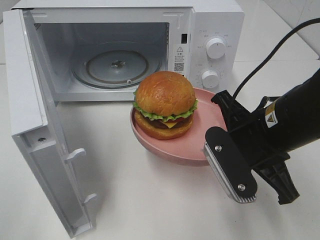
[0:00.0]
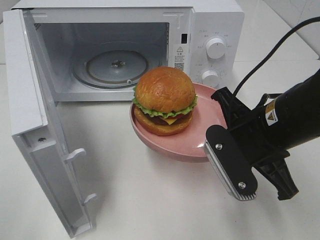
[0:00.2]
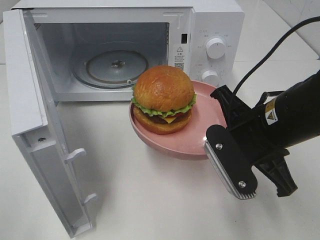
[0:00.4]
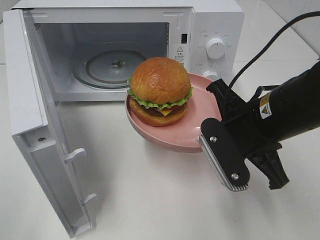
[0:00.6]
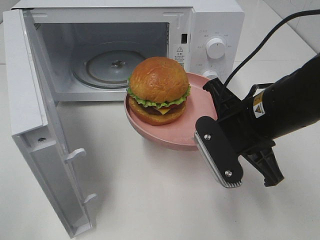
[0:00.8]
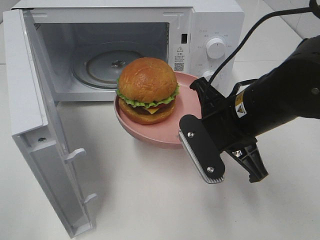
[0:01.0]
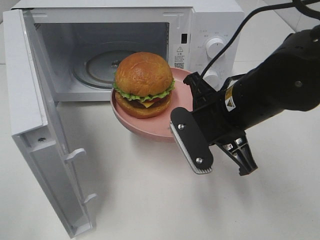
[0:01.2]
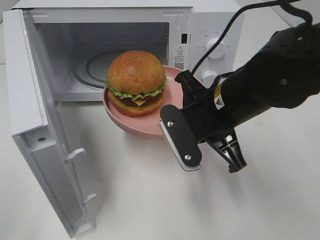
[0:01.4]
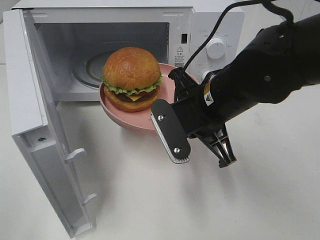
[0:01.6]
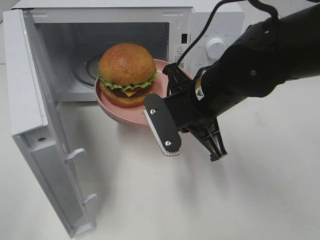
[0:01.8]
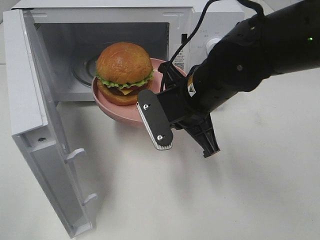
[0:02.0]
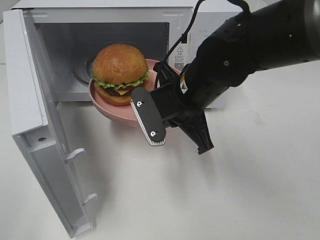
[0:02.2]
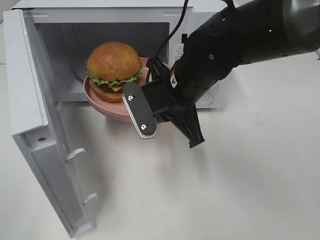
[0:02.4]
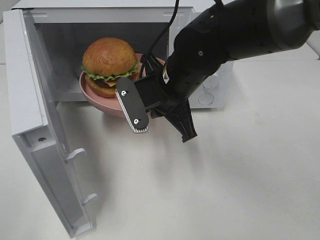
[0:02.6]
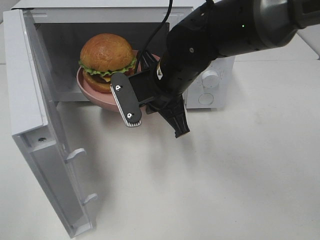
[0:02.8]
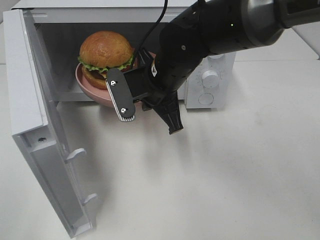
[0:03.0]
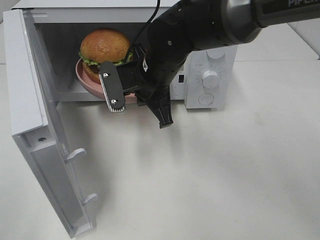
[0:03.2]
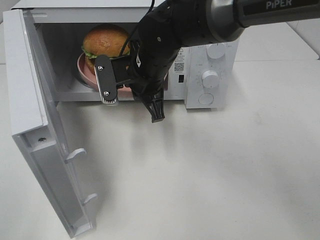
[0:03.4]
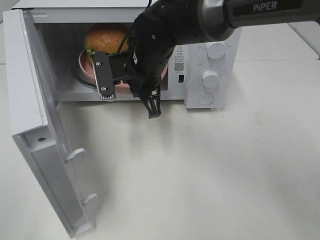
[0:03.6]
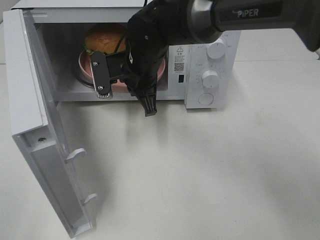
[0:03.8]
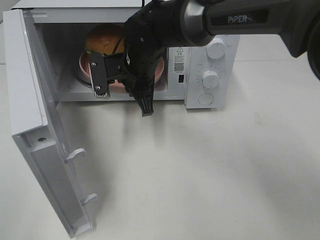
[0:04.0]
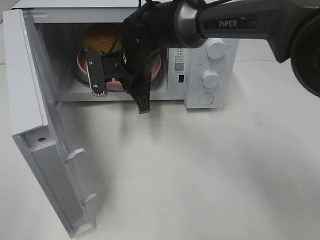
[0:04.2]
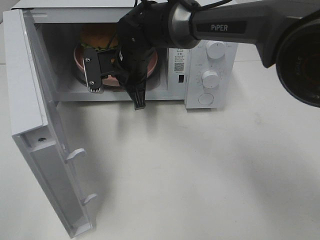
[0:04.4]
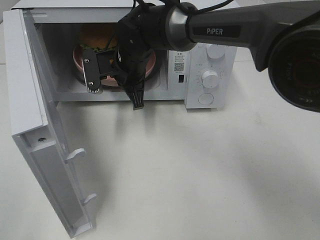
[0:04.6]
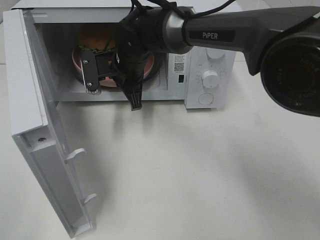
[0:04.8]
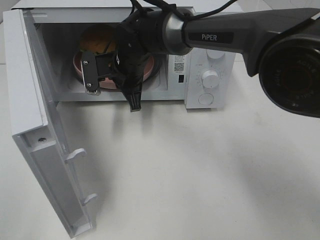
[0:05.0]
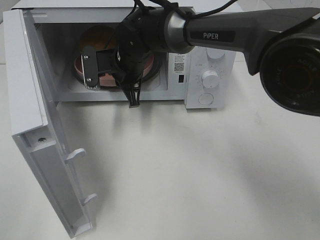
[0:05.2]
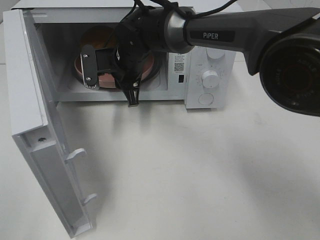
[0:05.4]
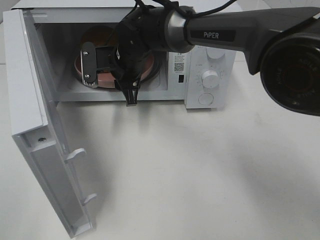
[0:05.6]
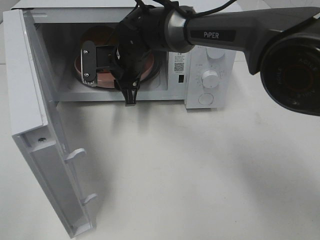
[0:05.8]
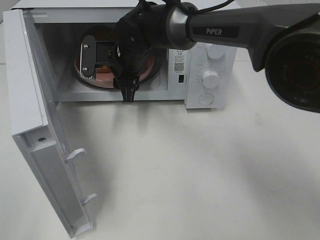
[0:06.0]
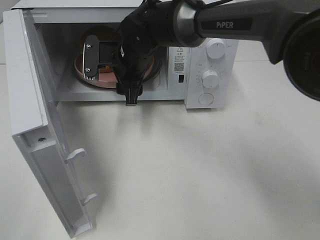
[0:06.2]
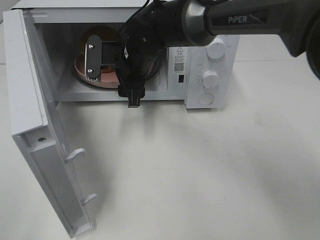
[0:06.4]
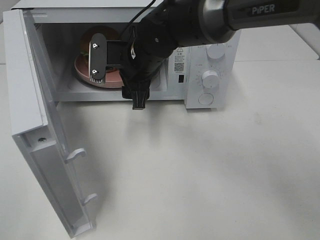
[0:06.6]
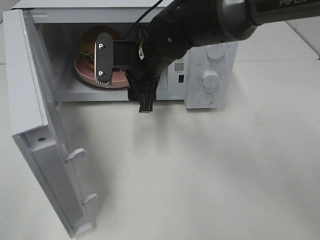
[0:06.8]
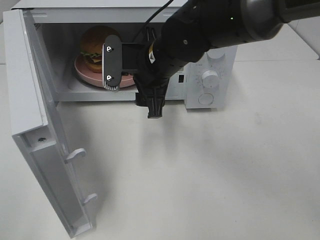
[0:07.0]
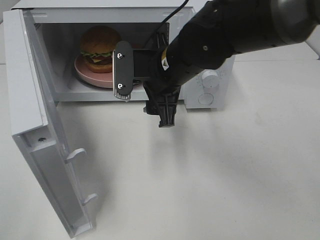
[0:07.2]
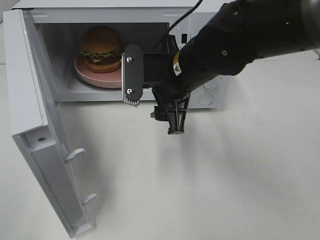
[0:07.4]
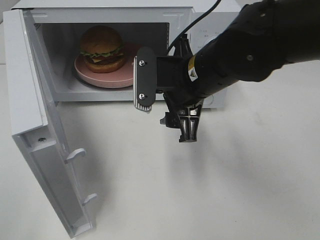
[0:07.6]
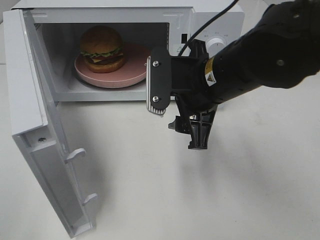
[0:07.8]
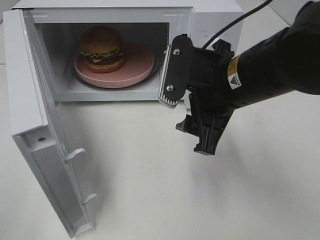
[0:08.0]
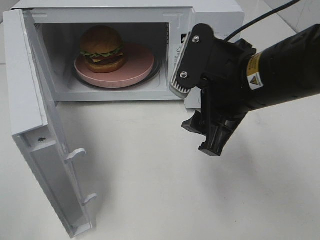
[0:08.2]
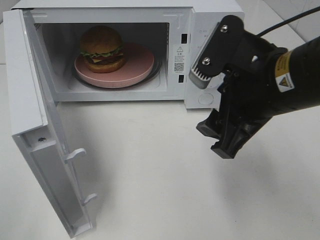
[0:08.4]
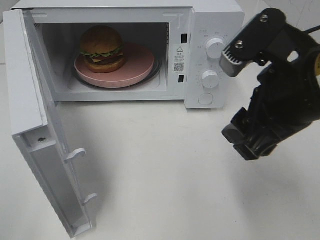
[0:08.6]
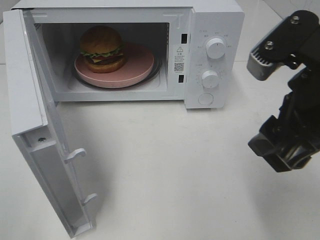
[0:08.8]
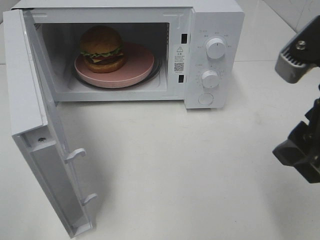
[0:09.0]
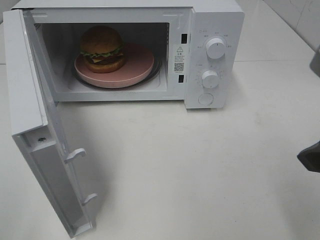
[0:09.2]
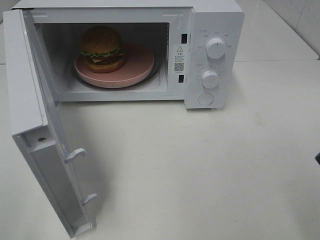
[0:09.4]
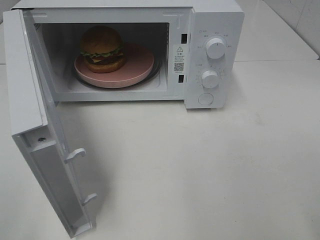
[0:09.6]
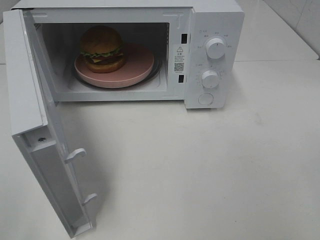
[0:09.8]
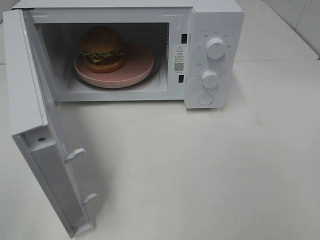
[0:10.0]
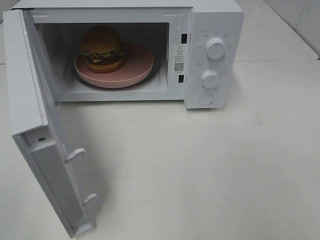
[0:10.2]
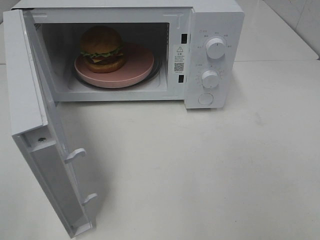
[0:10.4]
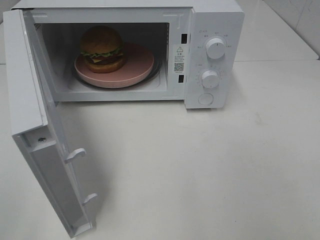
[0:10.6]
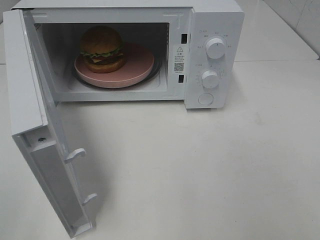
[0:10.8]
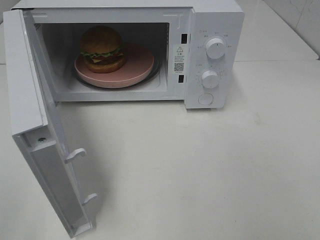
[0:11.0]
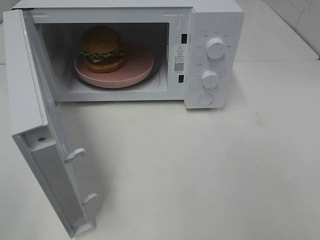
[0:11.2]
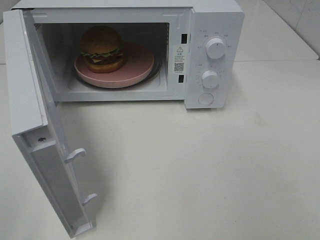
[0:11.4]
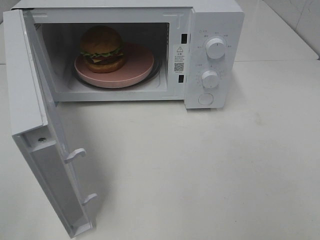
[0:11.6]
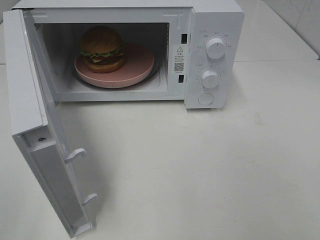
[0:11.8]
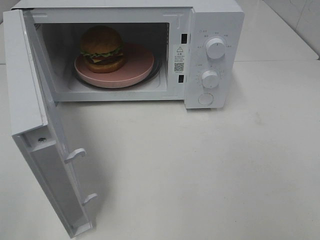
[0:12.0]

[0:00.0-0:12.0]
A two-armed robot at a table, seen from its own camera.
Task of the whole recording: Heat the burger.
Step, 0:00.0 to 0:05.4: Right hand: place the plate in the microwave.
0:00.0 to 0:01.6: The right gripper travels to the left and forward by about 10 cm.
0:01.6 to 0:03.0: The right gripper travels forward and to the left by roughly 10 cm.
0:03.0 to 0:04.4: The right gripper shifts some 10 cm forward and to the left.
0:04.4 to 0:06.0: The right gripper opens its fingers.
0:06.0 to 0:07.6: The right gripper is displaced backward and to the right by roughly 20 cm.
0:07.6 to 0:09.0: The right gripper goes approximately 20 cm backward, to the right and upward.
0:09.0 to 0:10.4: The right gripper goes approximately 15 cm backward and to the right.

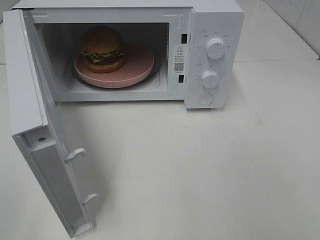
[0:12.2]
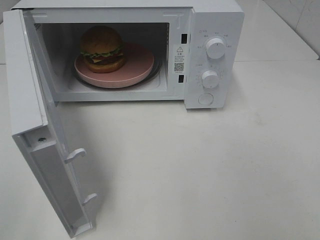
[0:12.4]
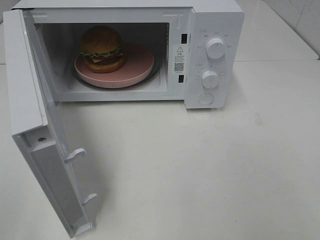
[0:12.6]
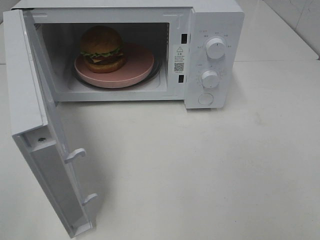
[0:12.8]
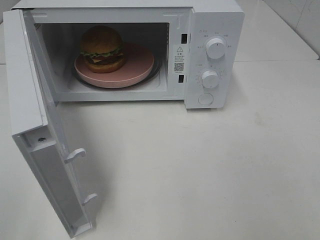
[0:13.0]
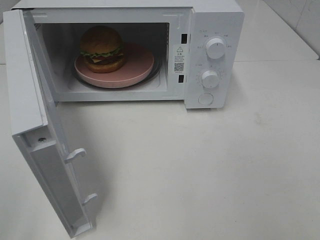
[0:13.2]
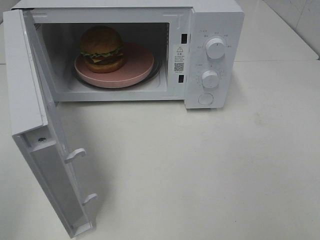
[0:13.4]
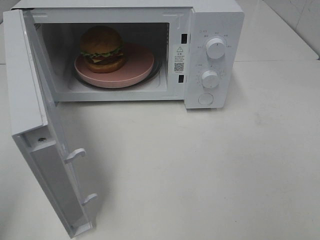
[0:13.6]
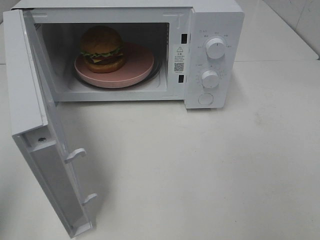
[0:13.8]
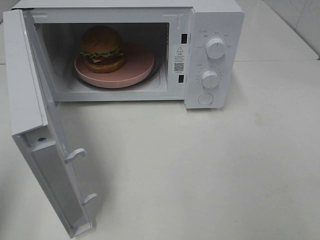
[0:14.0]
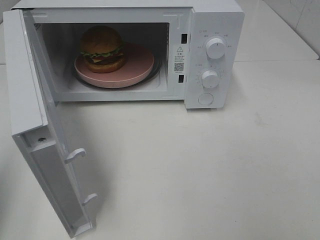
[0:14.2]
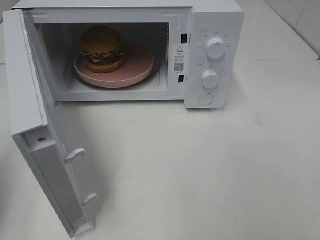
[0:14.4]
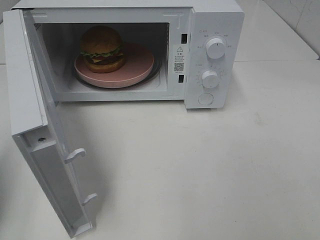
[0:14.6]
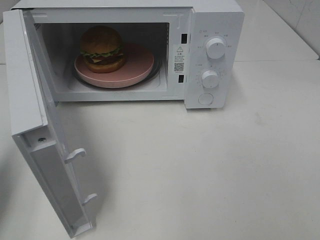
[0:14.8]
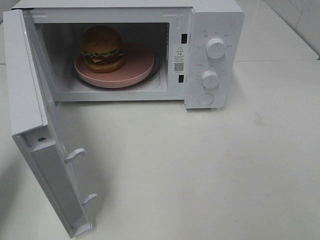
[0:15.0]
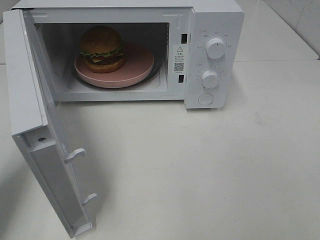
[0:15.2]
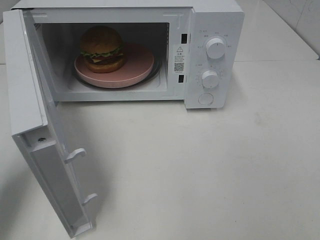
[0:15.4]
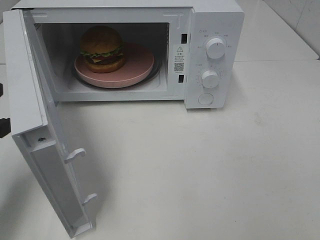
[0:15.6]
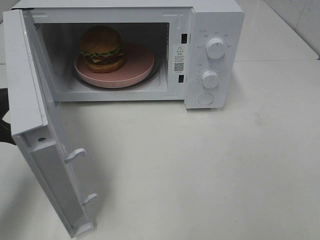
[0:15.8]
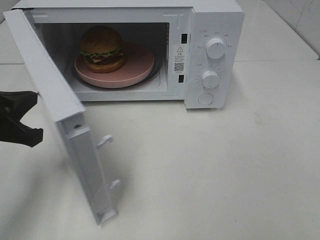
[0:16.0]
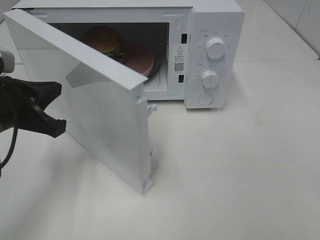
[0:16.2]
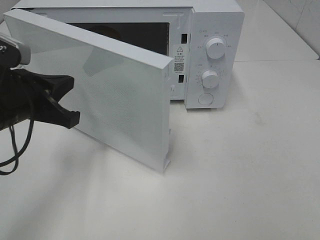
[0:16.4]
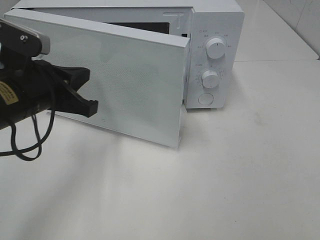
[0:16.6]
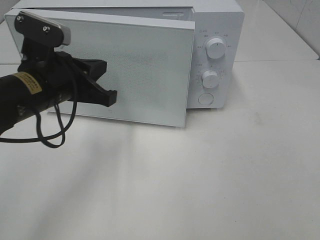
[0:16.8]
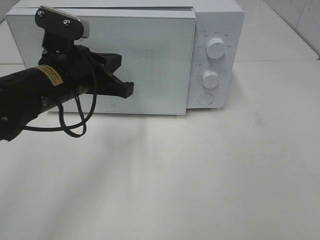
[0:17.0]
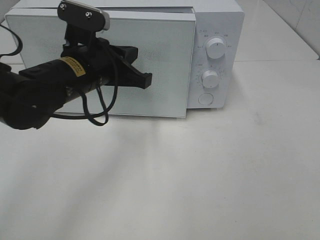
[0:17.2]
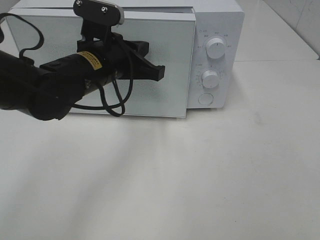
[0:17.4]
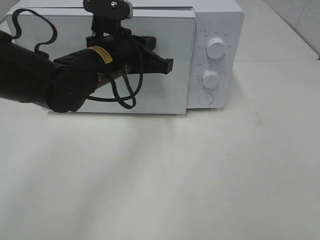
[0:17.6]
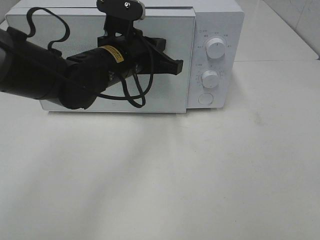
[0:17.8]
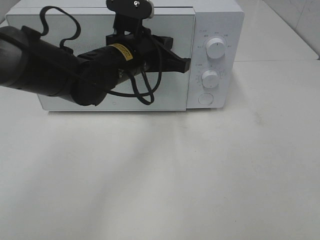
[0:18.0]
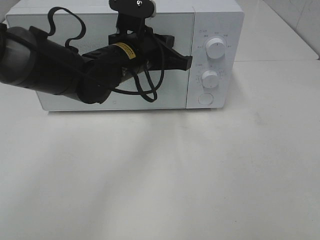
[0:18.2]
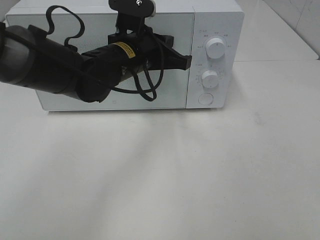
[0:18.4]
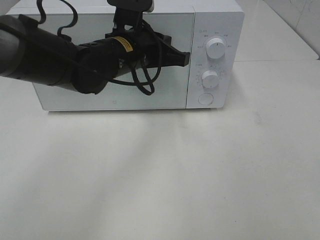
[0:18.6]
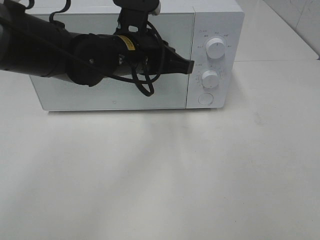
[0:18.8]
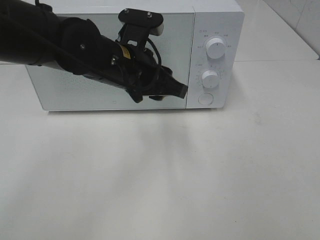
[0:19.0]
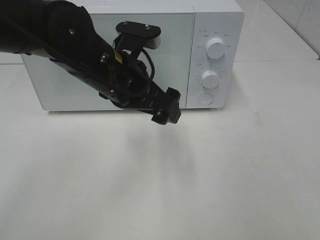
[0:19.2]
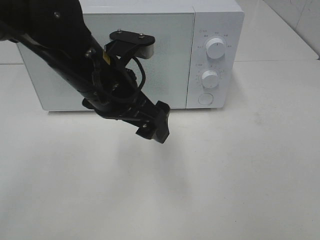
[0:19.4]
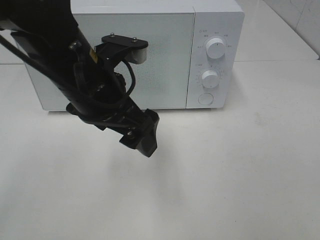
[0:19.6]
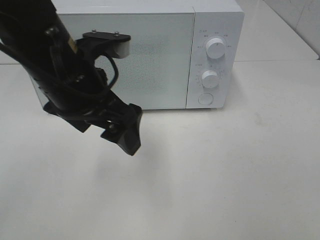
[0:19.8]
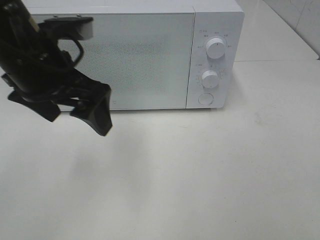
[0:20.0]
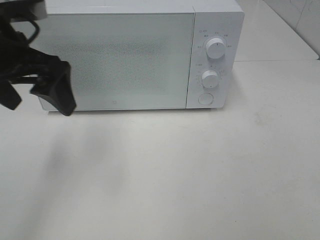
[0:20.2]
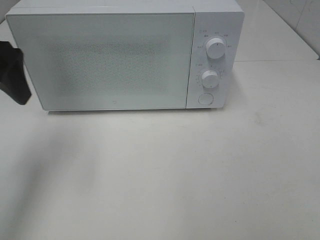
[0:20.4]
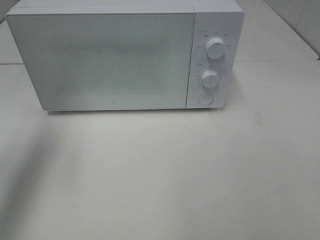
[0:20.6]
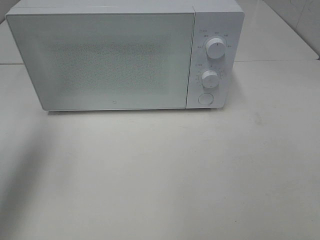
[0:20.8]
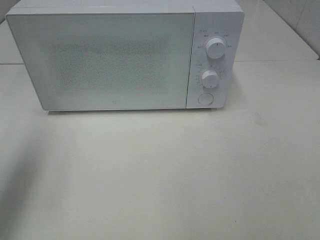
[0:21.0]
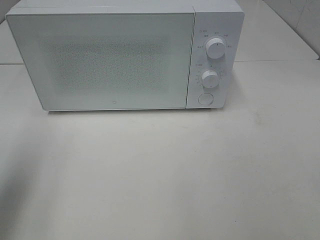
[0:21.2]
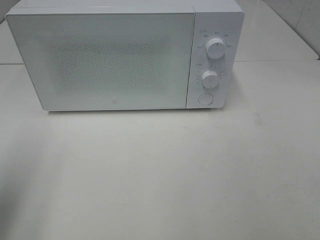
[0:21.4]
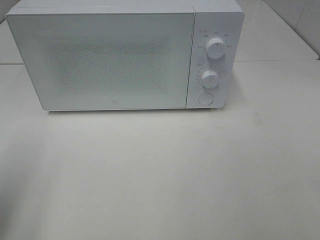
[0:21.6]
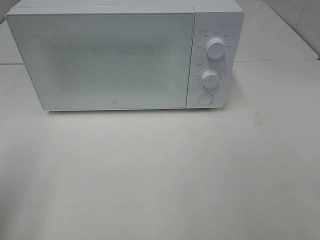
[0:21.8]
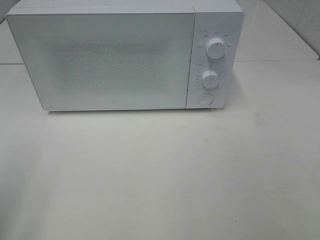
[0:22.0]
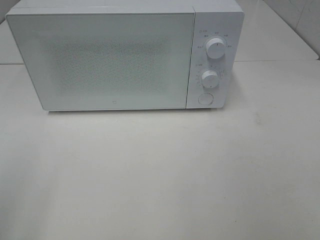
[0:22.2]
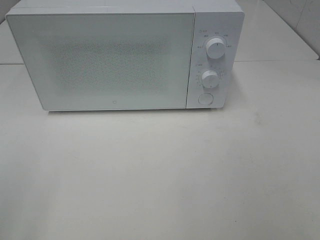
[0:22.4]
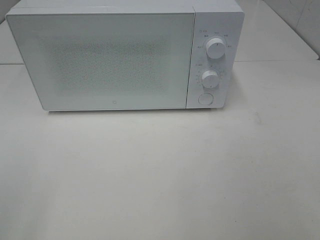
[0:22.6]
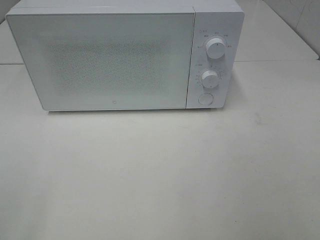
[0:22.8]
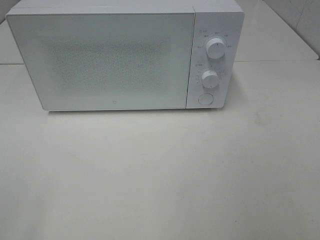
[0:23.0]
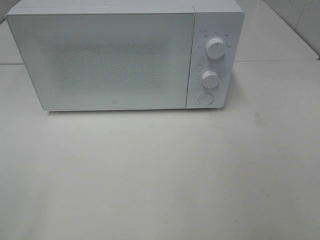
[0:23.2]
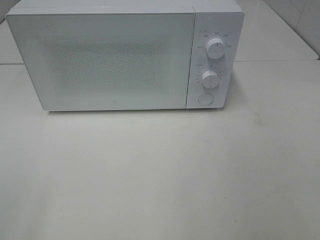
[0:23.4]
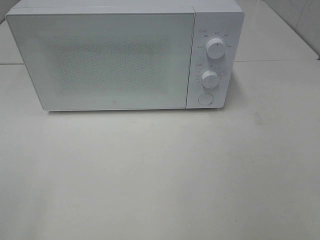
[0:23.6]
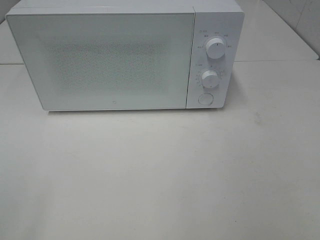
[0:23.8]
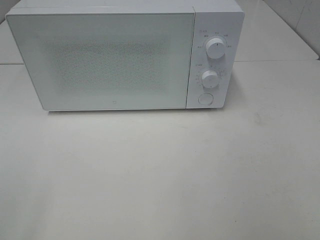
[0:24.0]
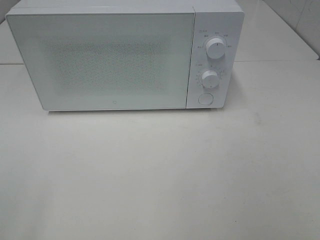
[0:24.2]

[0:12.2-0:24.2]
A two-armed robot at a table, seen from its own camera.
Task of the whole recording: Heat the burger.
Step, 0:12.2 to 0:18.6: Left hand: close the microwave door.
0:13.8 to 0:15.2: The left gripper travels forward and downward by roughly 15 cm.
0:15.2 to 0:16.6: The left gripper shifts roughly 15 cm to the right and forward.
0:16.6 to 0:18.2: The left gripper is displaced to the right and forward by roughly 15 cm.
0:18.2 to 0:19.8: The left gripper moves backward, to the left and upward, roughly 15 cm, and opens up.
0:19.8 to 0:21.2: The left gripper travels to the left by some 20 cm.
0:21.2 to 0:22.6: The left gripper shifts roughly 15 cm backward.
